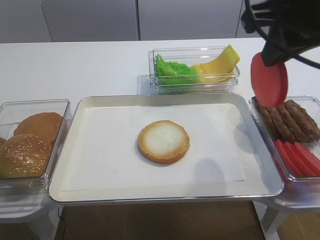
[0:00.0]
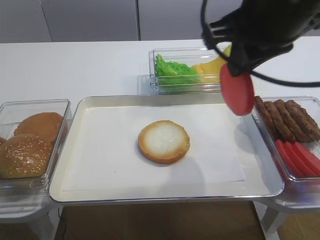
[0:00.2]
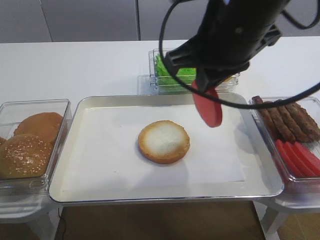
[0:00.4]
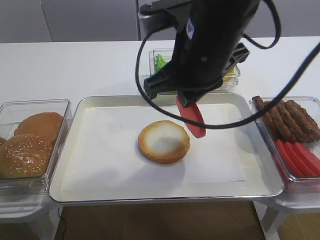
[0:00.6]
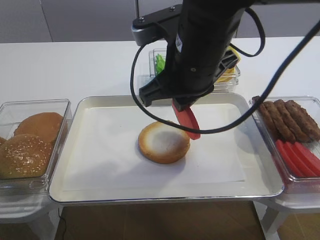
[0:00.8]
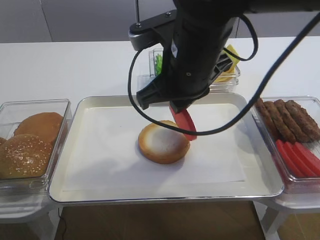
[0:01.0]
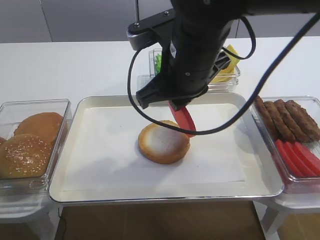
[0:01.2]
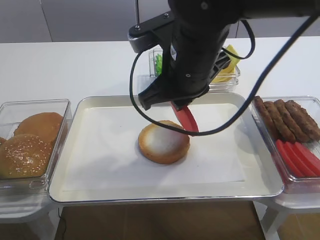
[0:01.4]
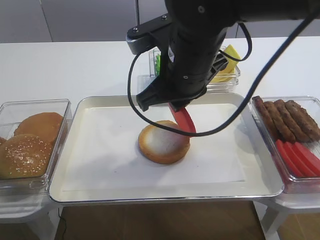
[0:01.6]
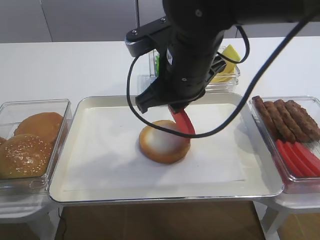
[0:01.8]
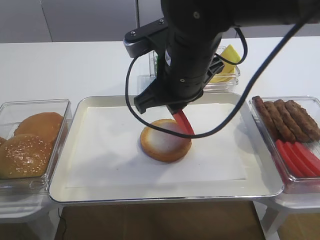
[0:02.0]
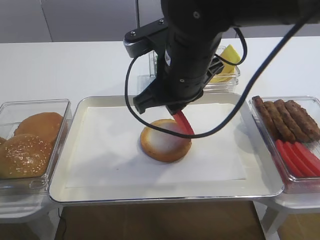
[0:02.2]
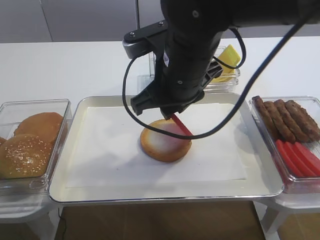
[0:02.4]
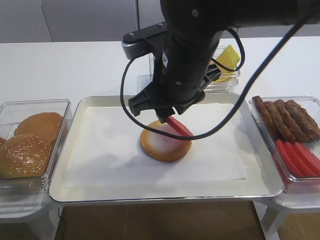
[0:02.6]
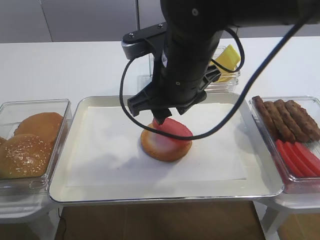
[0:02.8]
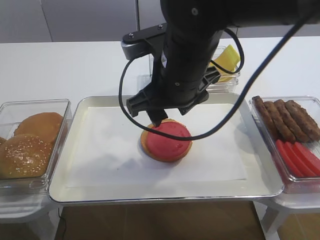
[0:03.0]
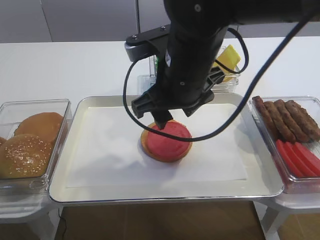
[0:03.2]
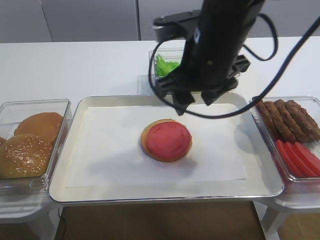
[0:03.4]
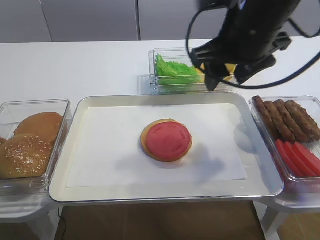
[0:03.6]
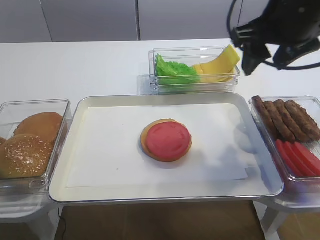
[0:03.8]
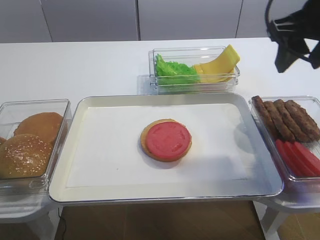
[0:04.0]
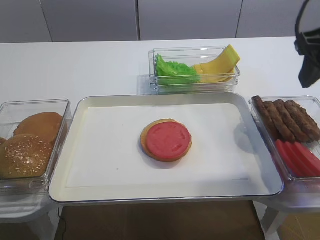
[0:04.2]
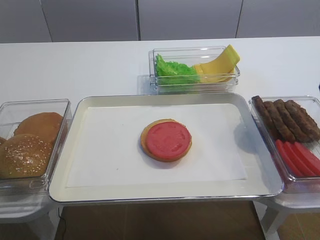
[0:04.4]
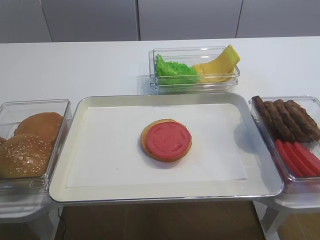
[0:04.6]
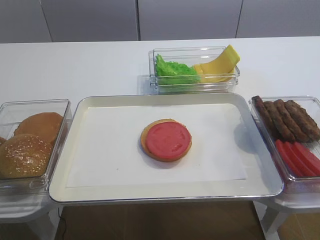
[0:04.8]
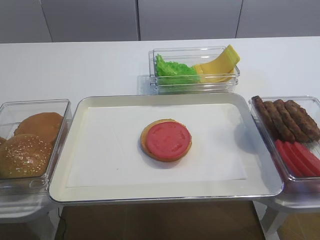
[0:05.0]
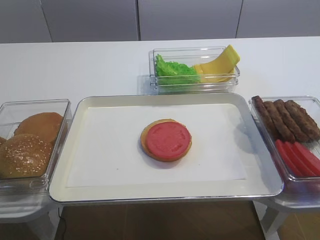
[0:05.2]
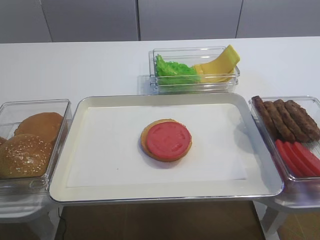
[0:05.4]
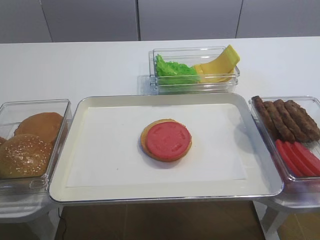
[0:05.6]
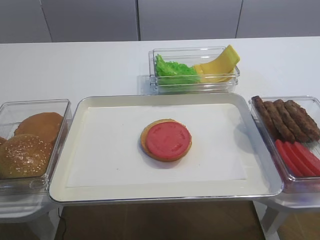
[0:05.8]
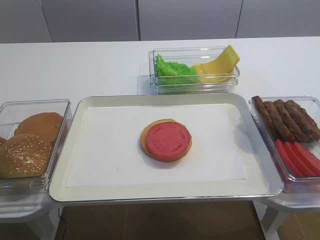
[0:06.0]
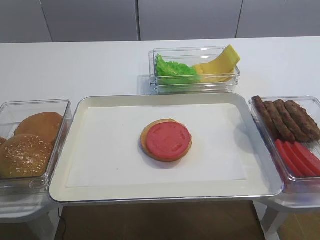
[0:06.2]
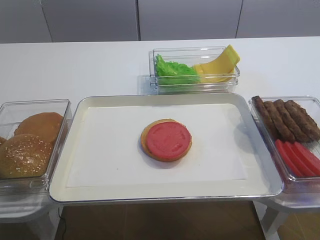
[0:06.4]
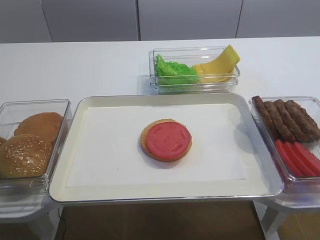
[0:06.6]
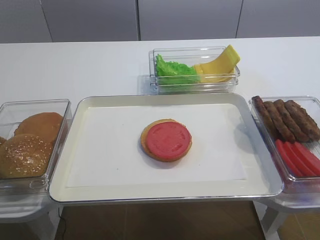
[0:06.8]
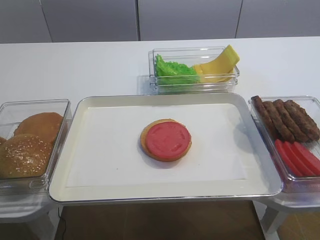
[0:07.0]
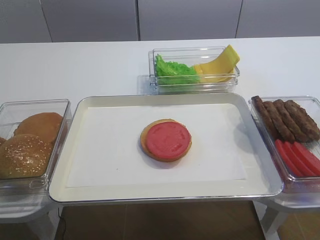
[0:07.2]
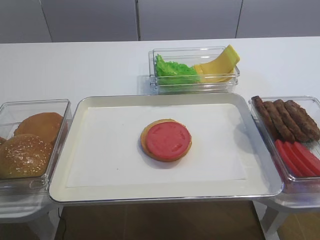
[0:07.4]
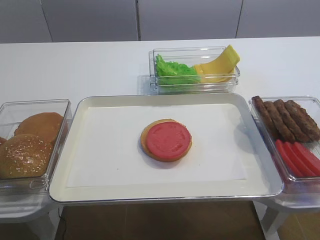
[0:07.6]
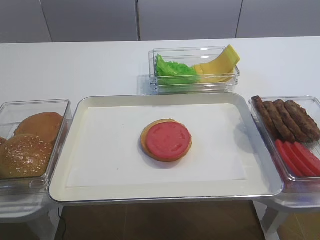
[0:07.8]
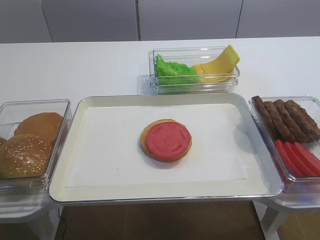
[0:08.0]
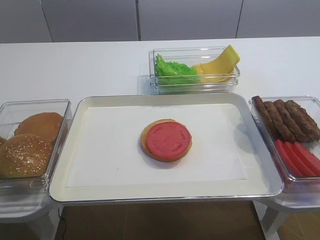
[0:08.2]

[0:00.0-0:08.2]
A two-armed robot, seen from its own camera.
Step, 0:00.0 to 0:03.2: Place the tomato slice on the bread slice with the right gripper.
0:00.0 to 0:01.6: The right gripper is displaced to the left and downward by roughly 15 cm.
0:01.6 to 0:03.2: The right gripper opens its fingers.
0:03.2 to 0:05.0: The right gripper goes approximately 30 cm to the right and backward.
0:05.0 to 0:06.6: The right gripper shifts some 10 cm downward and backward.
0:06.6 to 0:08.2: Both grippers stay about where they are.

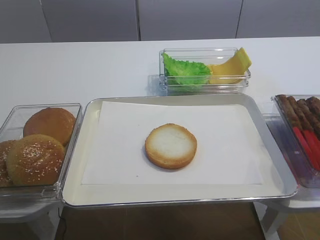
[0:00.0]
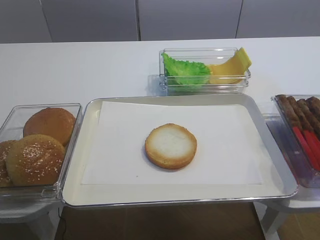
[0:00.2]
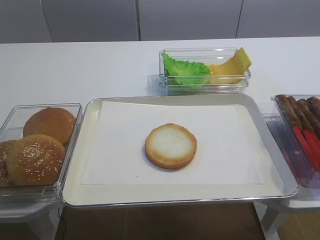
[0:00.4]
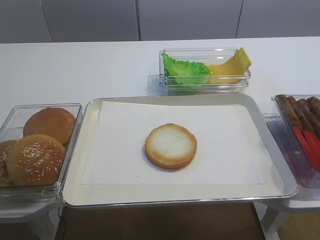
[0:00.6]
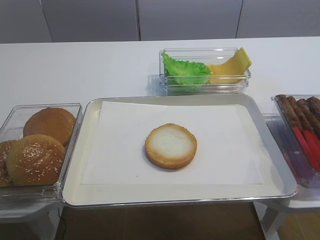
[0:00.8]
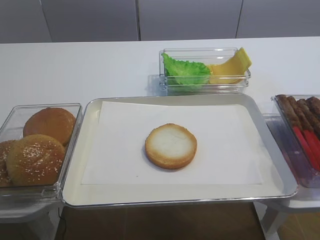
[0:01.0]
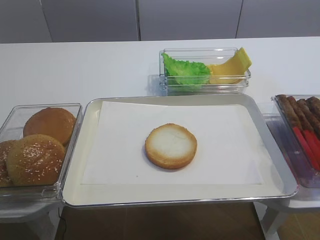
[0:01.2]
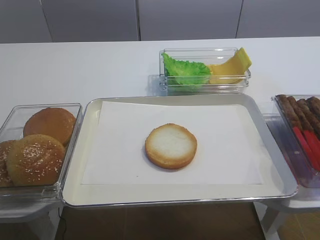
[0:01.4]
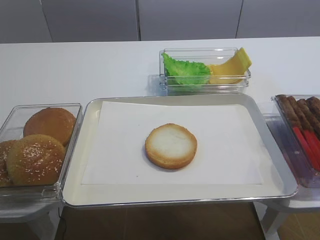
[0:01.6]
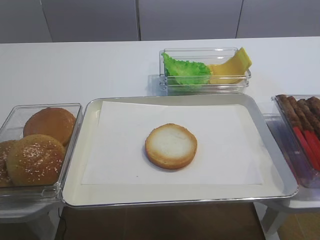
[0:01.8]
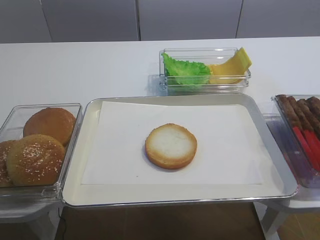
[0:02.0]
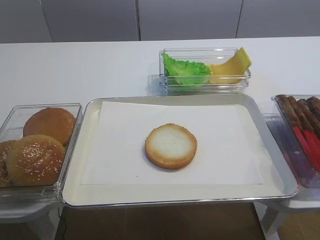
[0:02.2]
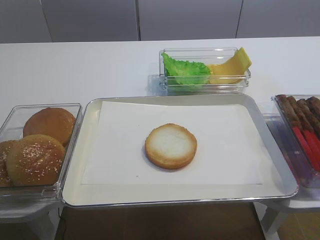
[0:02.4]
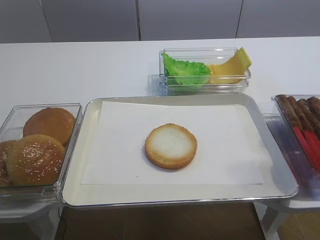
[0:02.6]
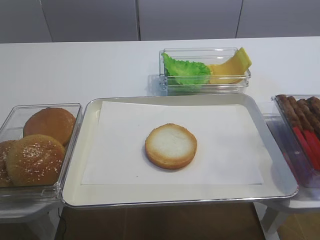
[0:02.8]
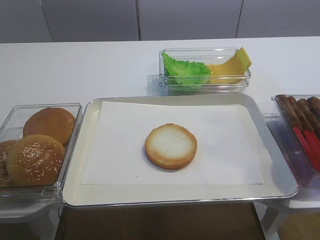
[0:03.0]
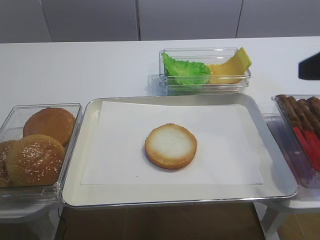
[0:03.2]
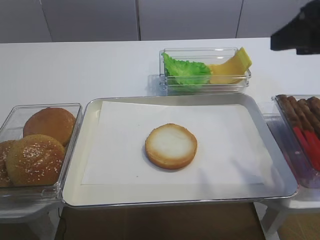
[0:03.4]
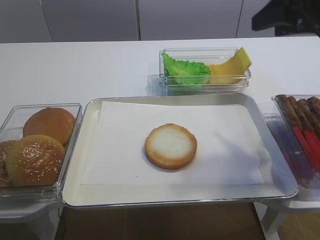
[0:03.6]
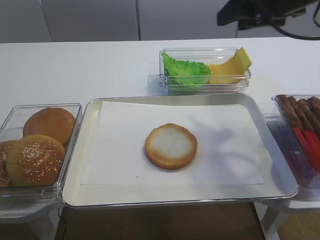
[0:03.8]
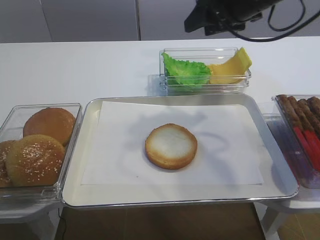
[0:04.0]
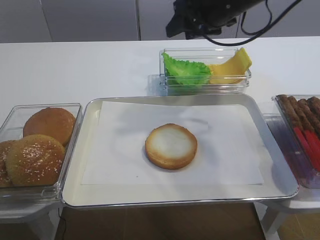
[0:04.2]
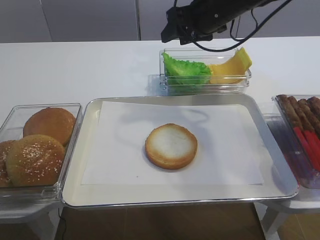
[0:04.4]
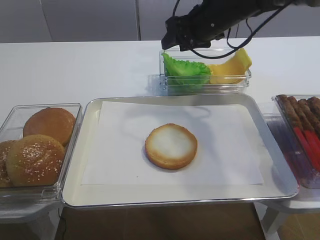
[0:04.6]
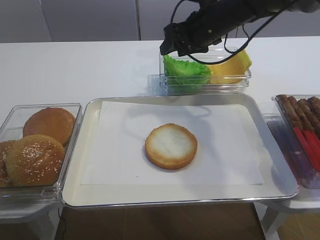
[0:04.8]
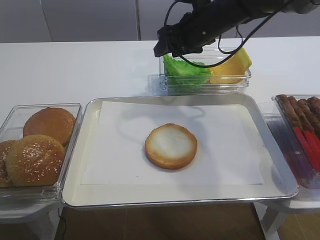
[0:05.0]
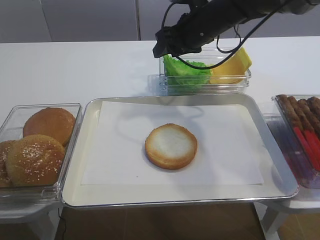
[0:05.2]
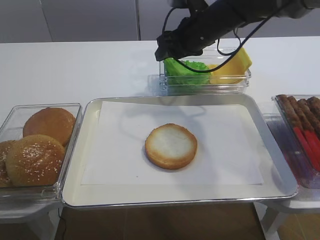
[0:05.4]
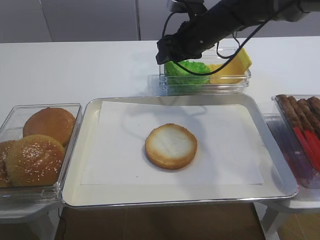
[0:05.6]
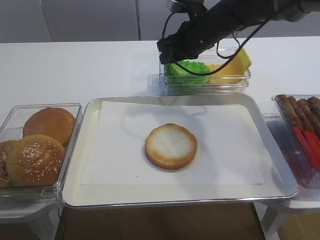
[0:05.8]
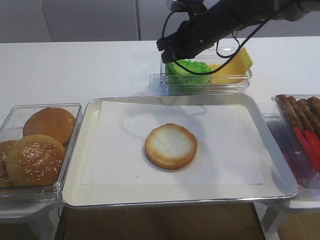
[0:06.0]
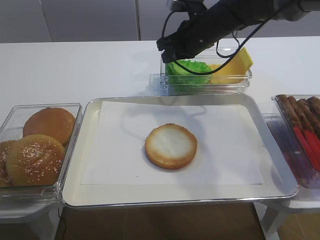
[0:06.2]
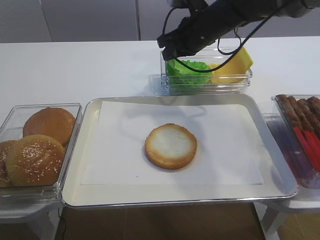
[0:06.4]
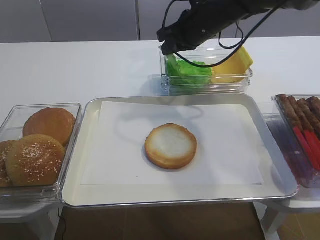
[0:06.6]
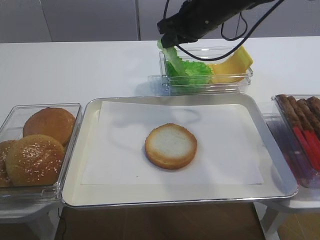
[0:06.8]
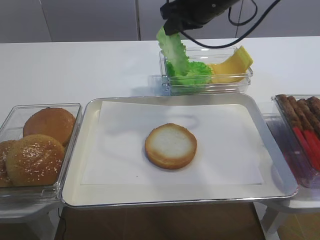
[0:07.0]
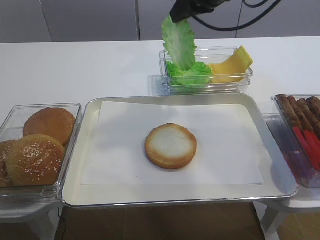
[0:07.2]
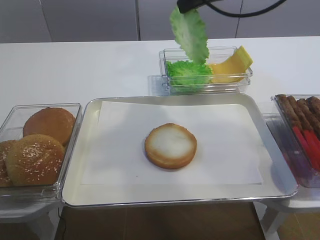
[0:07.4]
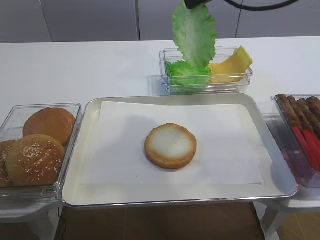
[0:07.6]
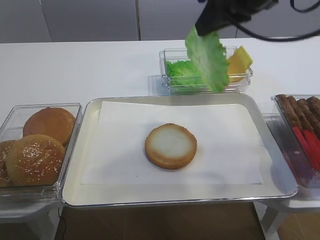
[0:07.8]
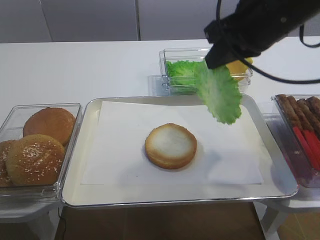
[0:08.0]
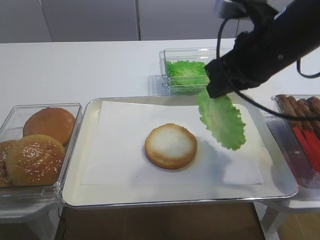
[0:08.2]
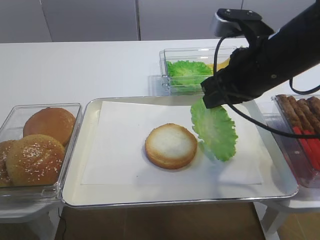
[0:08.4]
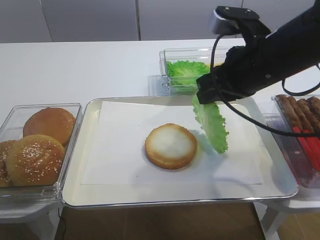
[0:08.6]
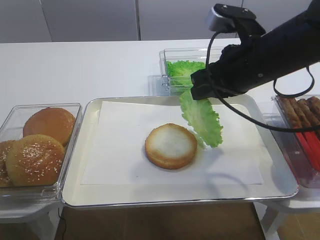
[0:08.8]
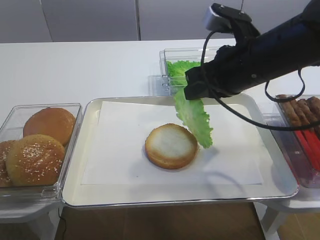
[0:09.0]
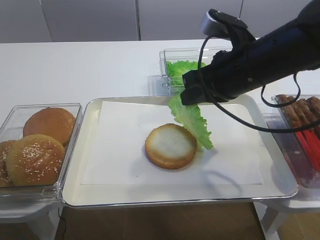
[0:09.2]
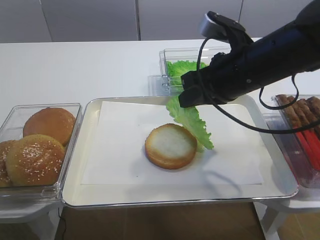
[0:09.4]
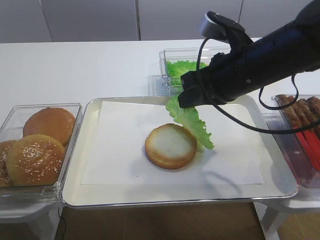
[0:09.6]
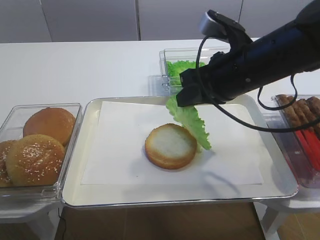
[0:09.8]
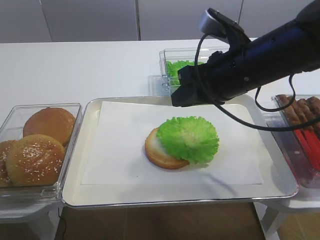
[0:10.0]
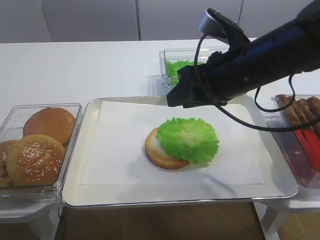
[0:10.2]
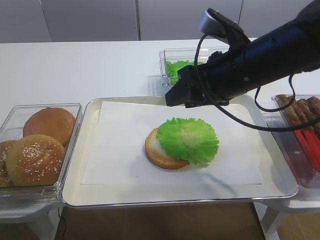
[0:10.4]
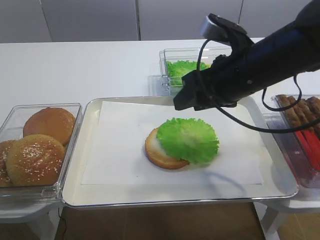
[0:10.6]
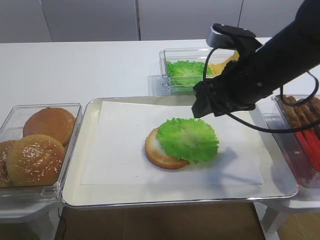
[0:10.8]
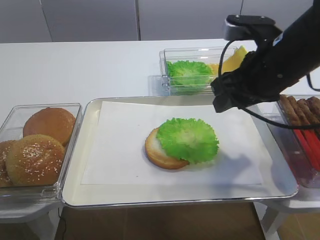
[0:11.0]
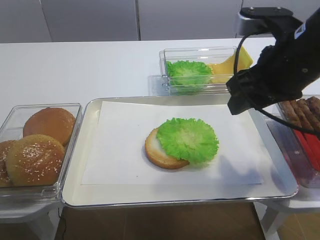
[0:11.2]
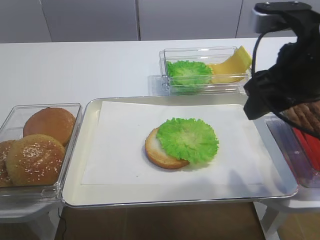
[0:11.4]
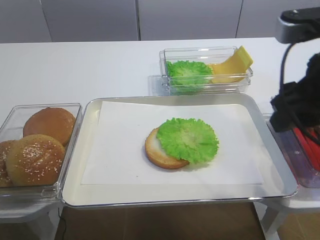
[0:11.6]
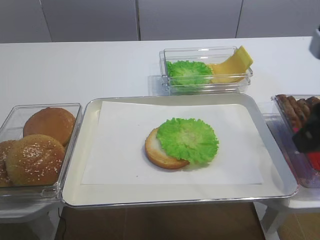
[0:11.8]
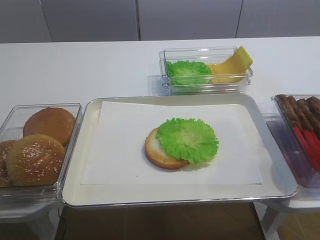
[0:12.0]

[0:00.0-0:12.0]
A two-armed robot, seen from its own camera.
Step, 0:00.0 to 0:06.8: Pick up the lettuce leaf with the right gripper.
Step, 0:07.0 to 0:11.2: Place the lettuce leaf on the bread slice with the right gripper.
0:03.0 to 0:04.4: The right gripper travels forward and to the left by some 35 cm.
0:04.4 to 0:06.0: The right gripper travels downward by about 5 cm, and closes up.
0:06.0 to 0:07.6: The right gripper goes approximately 20 cm upward and backward.
0:07.6 to 0:09.0: The right gripper moves downward, approximately 15 cm.
0:09.0 to 0:10.4: The right gripper opens its fingers.
0:10.4 to 0:12.0: The right gripper goes about 20 cm backward and to the right.

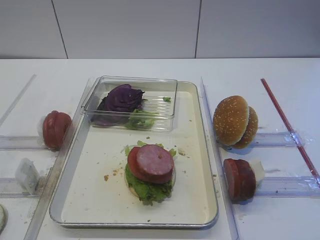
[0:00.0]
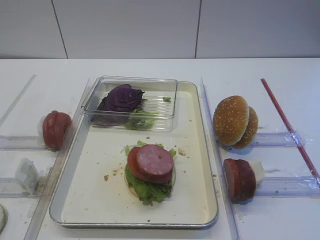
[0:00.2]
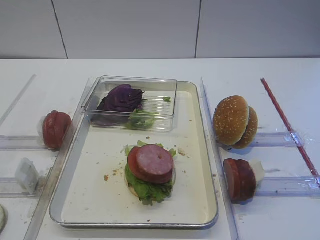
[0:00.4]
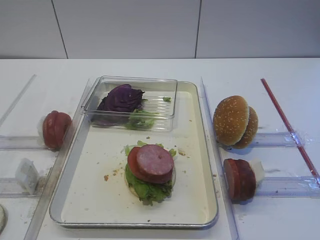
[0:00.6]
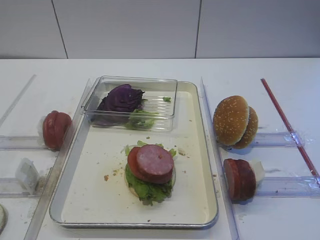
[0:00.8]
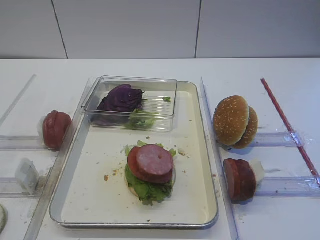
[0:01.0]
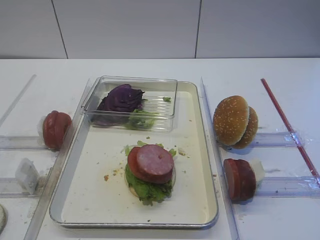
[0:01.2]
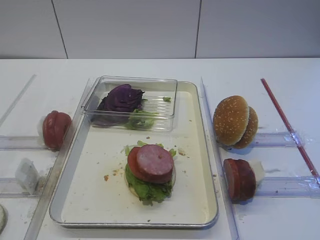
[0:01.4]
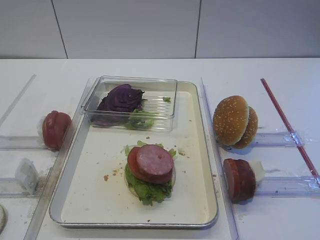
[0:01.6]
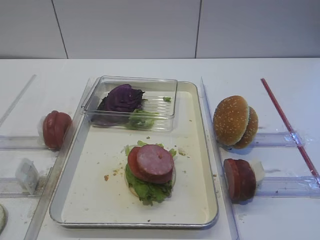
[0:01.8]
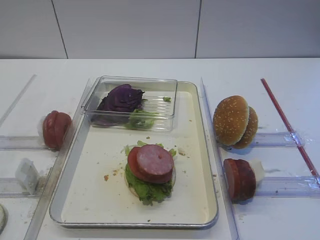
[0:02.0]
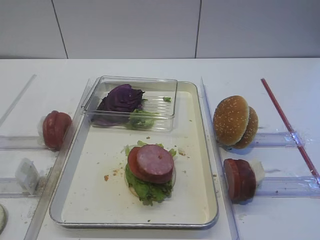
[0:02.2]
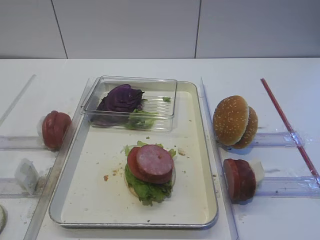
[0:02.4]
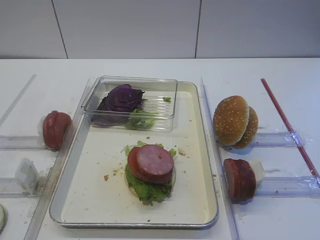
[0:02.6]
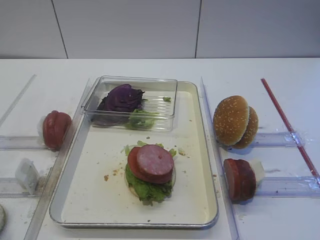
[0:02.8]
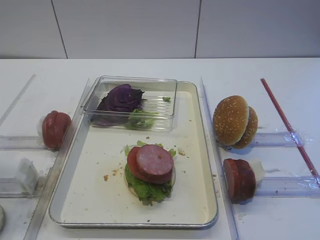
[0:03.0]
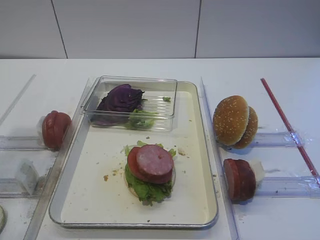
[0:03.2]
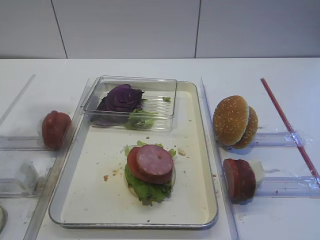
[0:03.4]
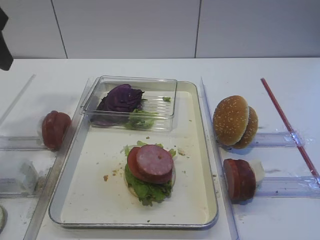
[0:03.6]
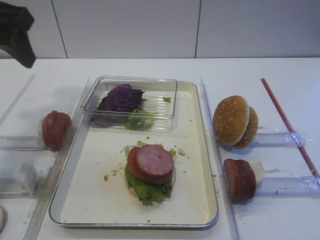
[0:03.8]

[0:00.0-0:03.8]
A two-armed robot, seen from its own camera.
0:01.2 to 0:02.6: Neither gripper changes place.
0:02.6 to 0:03.8: The left gripper shifts about 30 cm forward, and opens its fingers.
